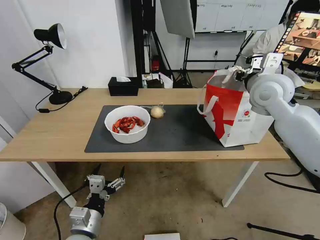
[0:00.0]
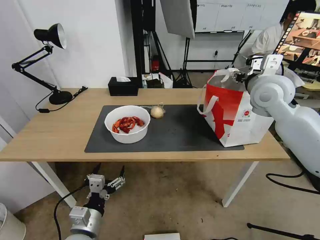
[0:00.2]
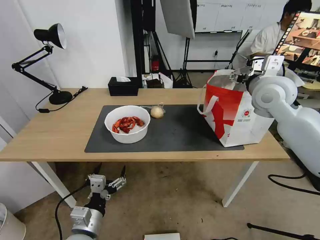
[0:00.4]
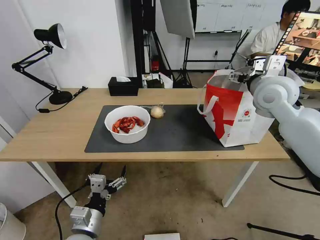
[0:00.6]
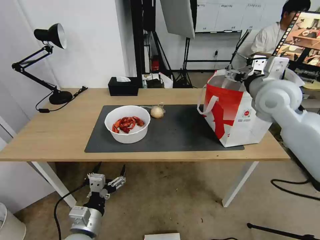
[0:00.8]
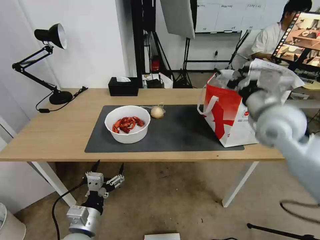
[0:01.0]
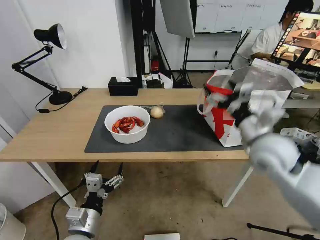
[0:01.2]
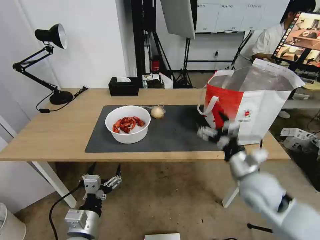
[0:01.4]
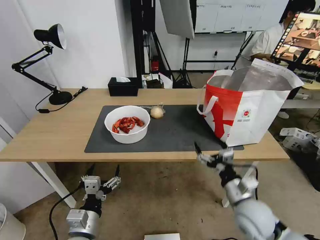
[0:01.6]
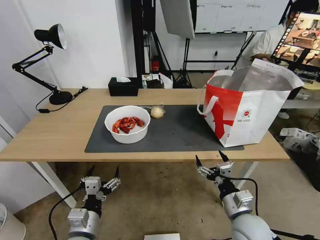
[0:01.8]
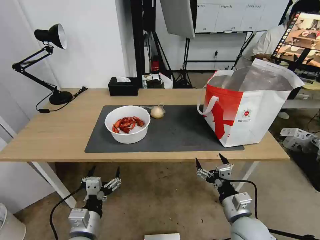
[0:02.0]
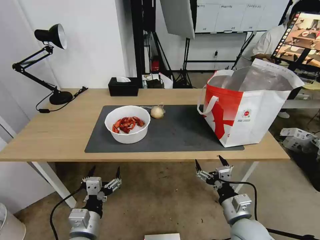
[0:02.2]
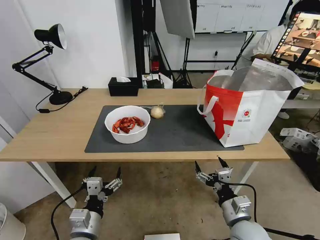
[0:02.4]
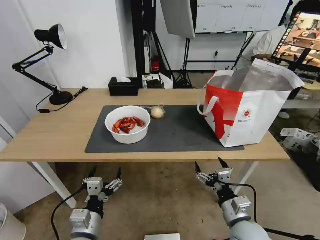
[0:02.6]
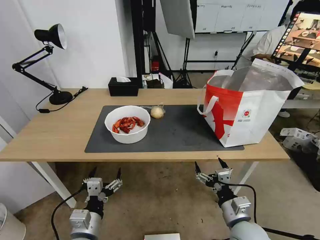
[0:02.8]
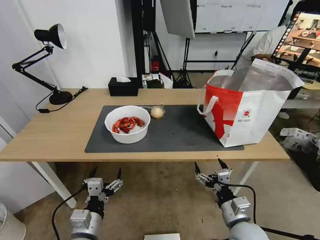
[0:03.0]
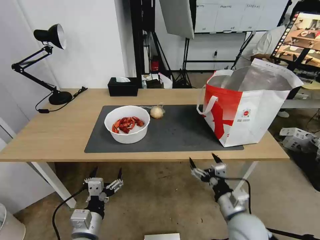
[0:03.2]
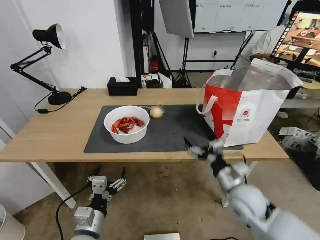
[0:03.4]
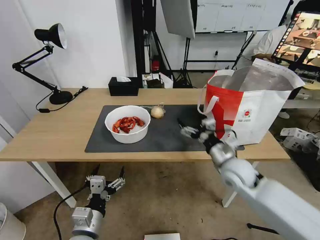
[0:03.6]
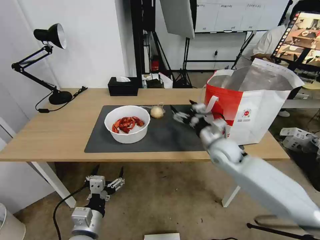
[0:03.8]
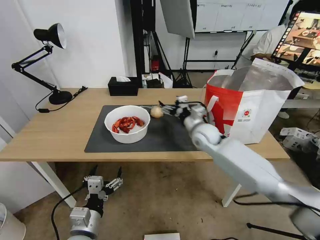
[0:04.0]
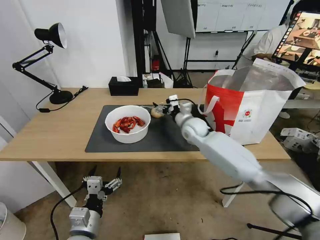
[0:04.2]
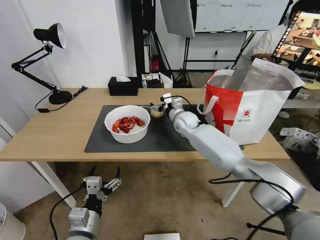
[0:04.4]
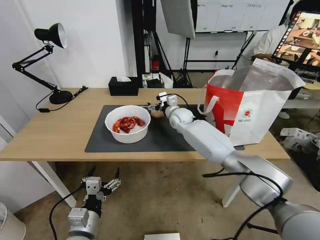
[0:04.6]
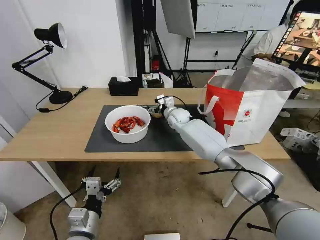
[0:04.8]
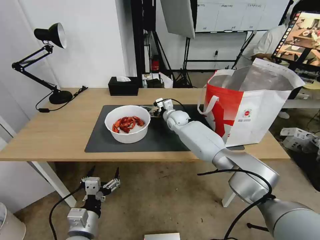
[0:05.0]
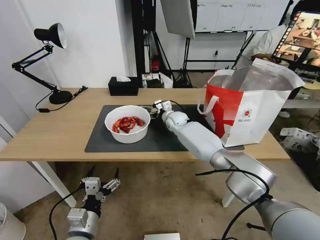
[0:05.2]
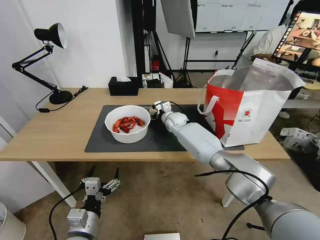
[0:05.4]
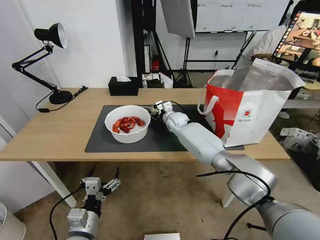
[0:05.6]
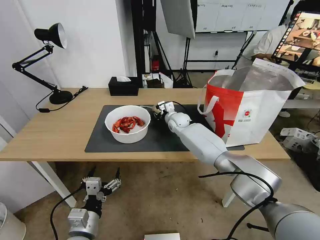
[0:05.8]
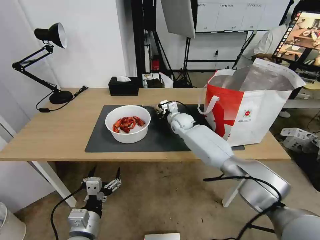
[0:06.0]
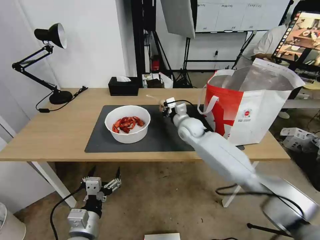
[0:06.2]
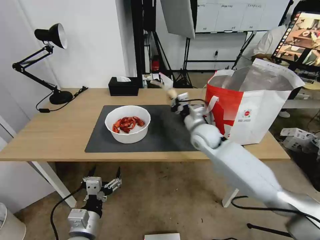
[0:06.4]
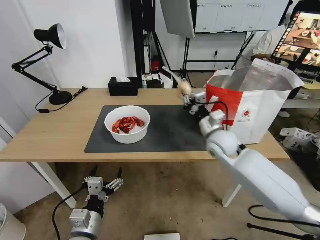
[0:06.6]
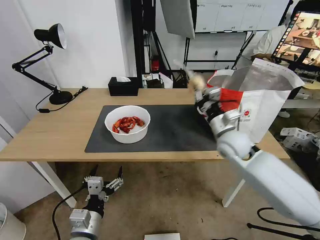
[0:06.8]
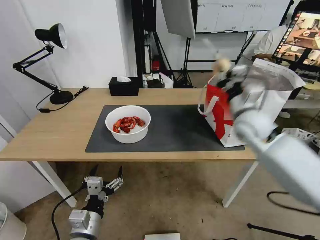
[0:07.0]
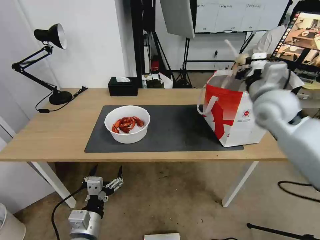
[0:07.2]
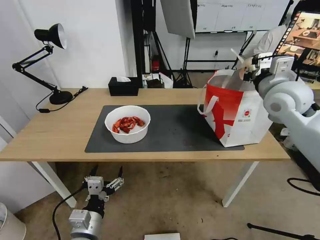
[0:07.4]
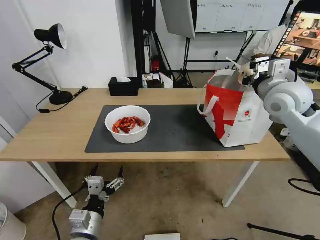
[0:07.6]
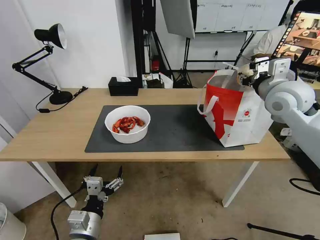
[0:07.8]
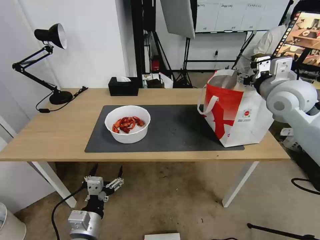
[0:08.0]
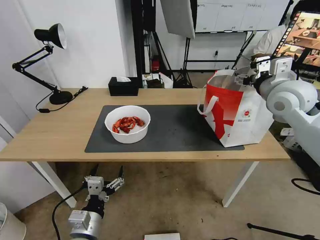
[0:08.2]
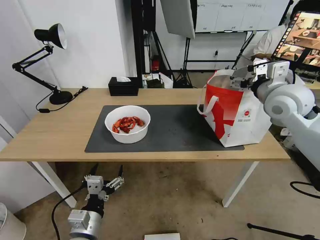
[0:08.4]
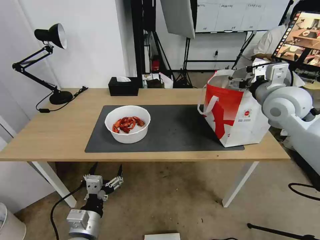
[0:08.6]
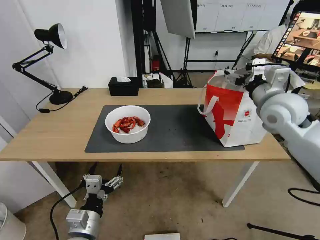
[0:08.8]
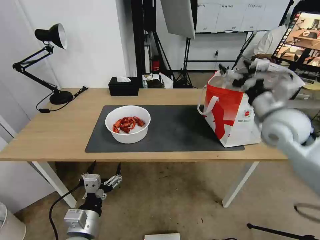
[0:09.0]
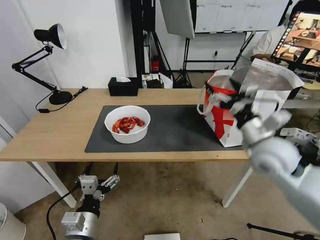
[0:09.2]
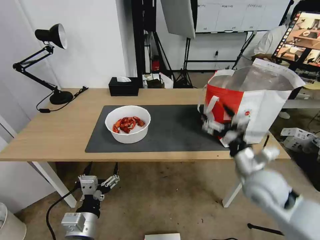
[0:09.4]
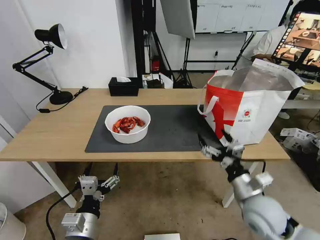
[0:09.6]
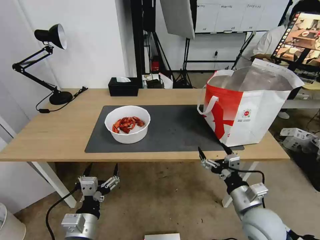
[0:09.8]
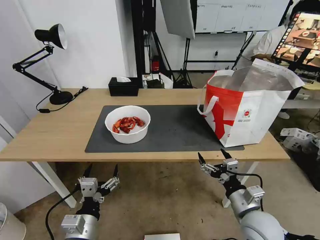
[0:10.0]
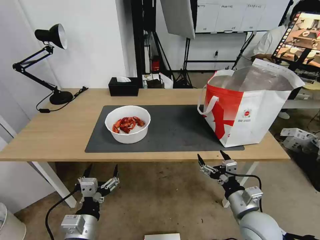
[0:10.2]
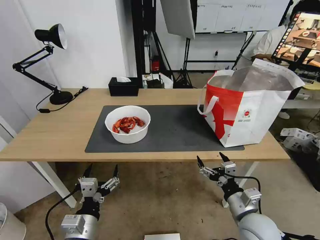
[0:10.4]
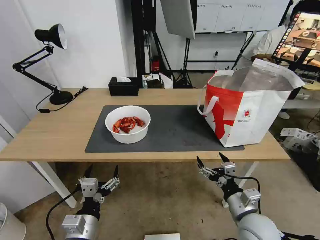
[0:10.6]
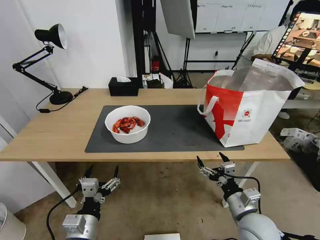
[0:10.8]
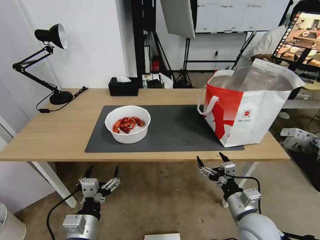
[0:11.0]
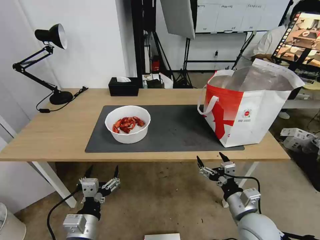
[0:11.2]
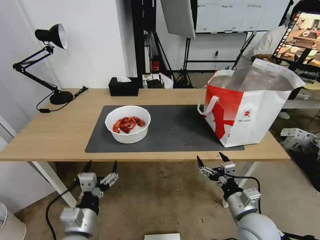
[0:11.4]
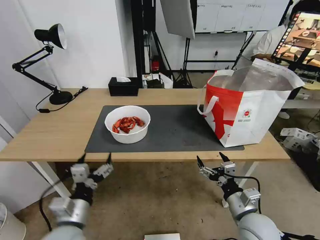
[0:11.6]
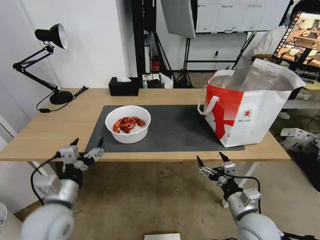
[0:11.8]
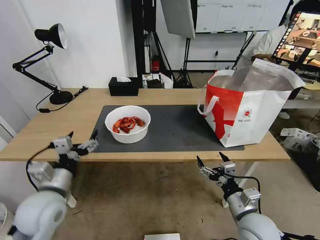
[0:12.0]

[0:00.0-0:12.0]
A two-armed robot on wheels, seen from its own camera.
Task of the whole recording: Pick up the trash from the table and place it into the takeout bag.
0:00.0 to 0:01.6: The right gripper shifts approximately 35 cm downward and backward, and opens its fingers.
0:01.6 to 0:03.0: The right gripper ends up approximately 5 cm from where it was.
0:03.0 to 0:04.4: The right gripper shifts some 40 cm forward.
0:04.4 to 0:06.0: The right gripper closes up.
0:06.0 to 0:07.6: The right gripper moves to the right, upward and backward, about 35 cm.
0:07.6 to 0:09.0: The right gripper goes roughly 10 cm backward and downward, and opens.
0:09.0 to 0:10.4: The right gripper is displaced downward and backward by approximately 30 cm.
0:10.4 to 0:12.0: The left gripper heads forward, upward and to the left, covering some 15 cm.

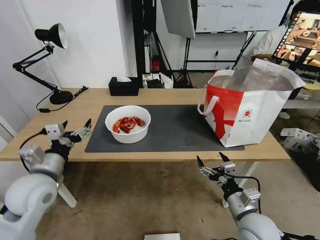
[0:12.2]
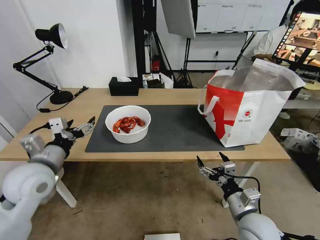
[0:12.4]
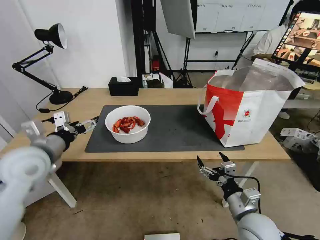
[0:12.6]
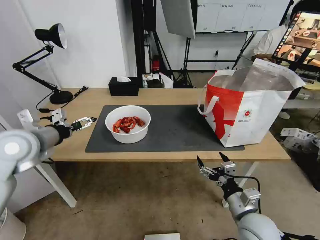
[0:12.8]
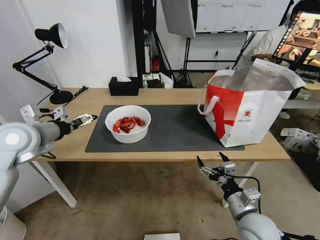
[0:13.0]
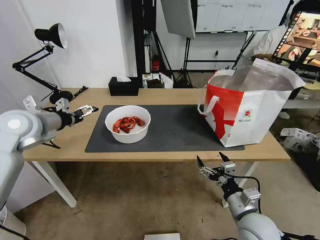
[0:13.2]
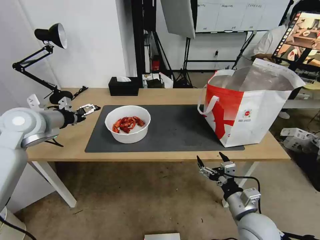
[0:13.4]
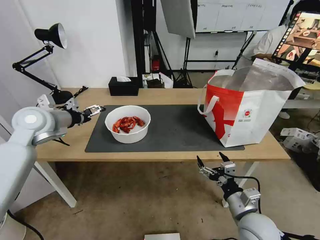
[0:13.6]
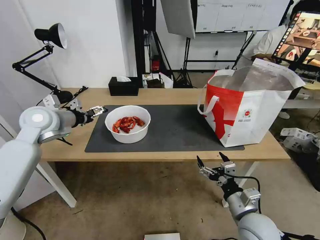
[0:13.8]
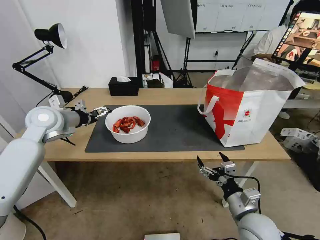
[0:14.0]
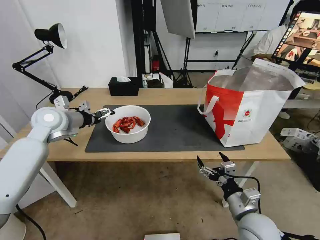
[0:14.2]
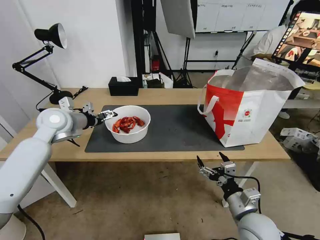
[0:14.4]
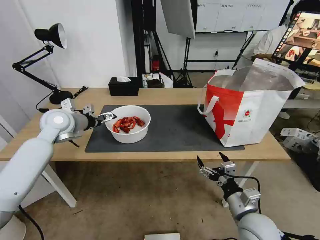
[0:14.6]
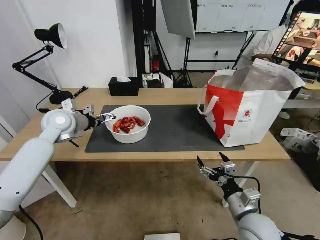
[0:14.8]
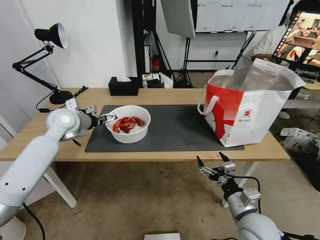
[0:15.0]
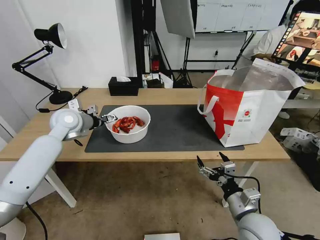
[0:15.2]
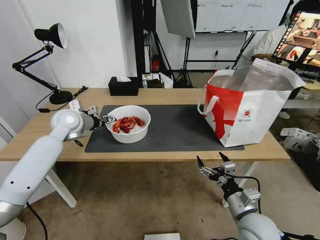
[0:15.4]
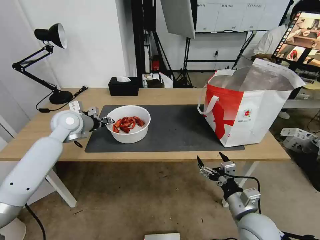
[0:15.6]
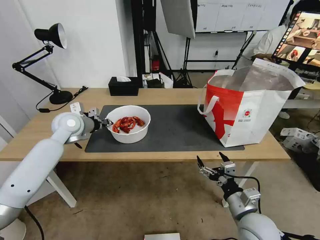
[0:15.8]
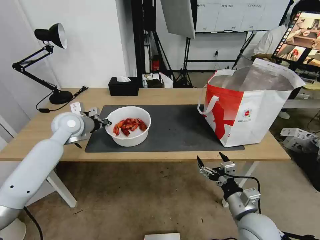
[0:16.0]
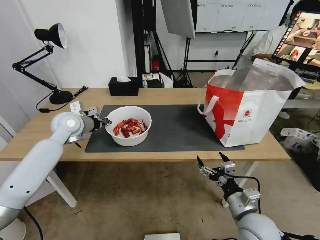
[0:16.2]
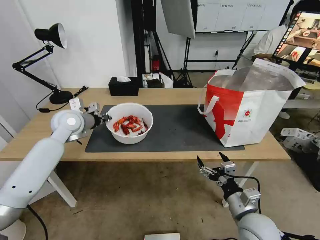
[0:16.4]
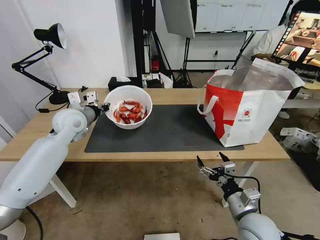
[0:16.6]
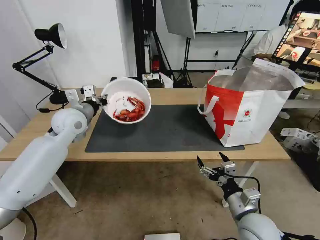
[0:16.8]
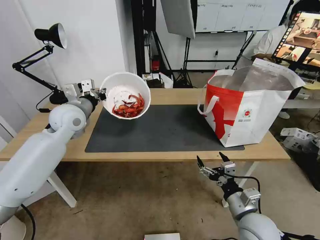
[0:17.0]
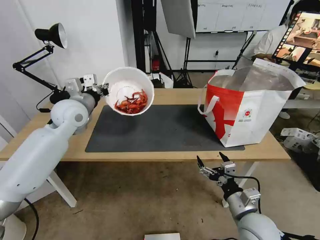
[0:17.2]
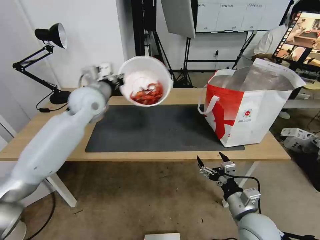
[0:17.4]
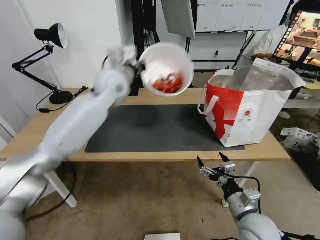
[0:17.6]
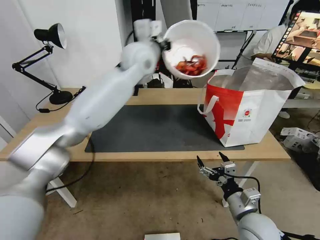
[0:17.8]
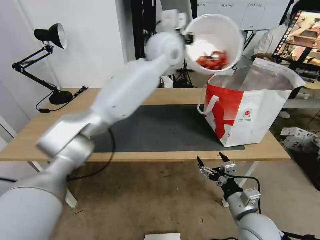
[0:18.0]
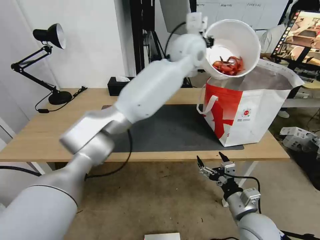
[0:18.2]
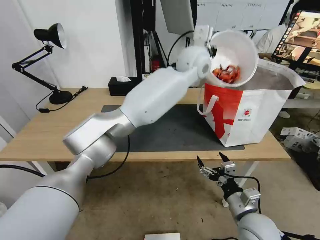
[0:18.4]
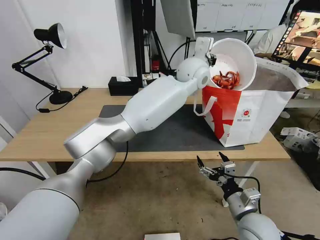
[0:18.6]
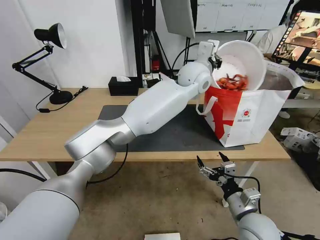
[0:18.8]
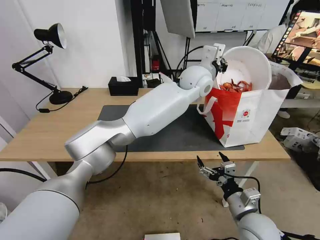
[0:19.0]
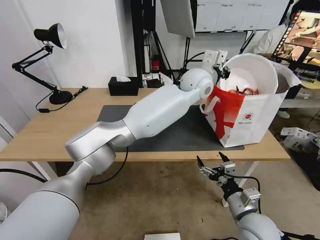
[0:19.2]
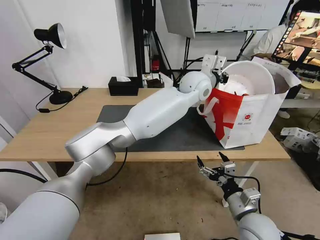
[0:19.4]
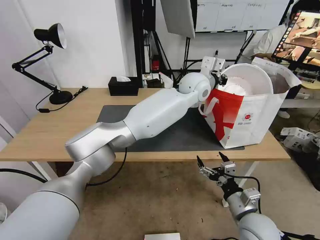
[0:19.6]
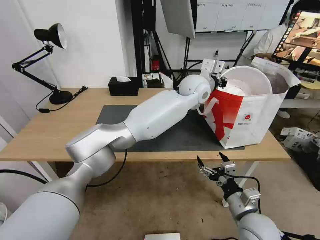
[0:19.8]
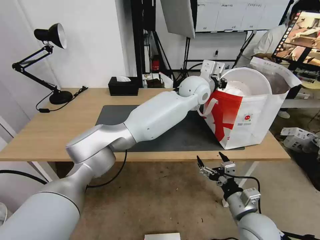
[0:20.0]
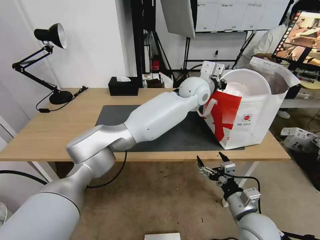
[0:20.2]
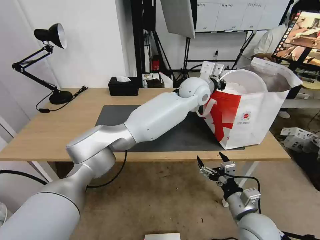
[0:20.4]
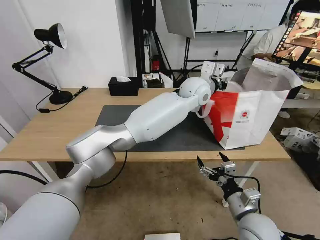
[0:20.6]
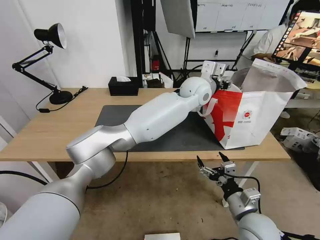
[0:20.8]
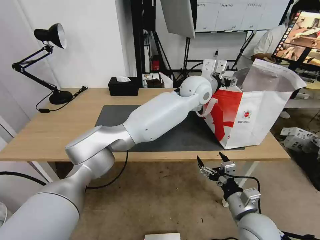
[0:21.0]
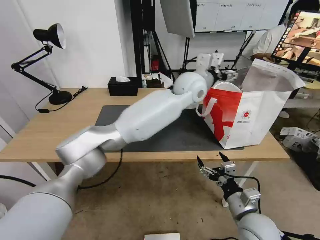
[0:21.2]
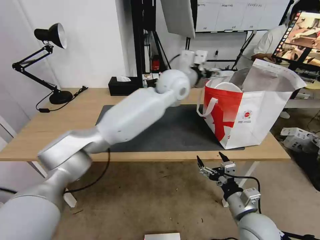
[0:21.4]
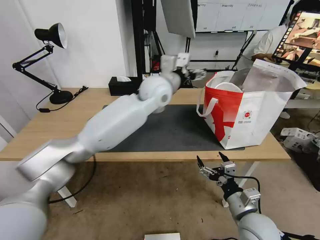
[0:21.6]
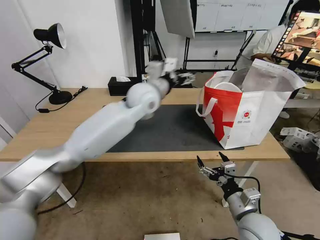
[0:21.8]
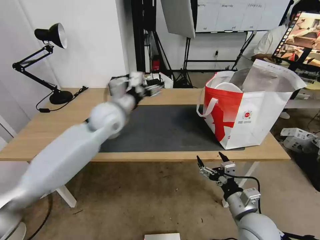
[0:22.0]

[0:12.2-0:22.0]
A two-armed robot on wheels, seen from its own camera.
Task of the whole recording: Pick up the trash from the table and place it into the takeout bag.
0:12.2 to 0:13.6: The left gripper heads forward and upward, covering roughly 20 cm.
0:13.6 to 0:15.0: The left gripper changes place by about 10 cm.
0:15.0 to 0:16.4: The left gripper closes up.
0:16.4 to 0:17.8: The left gripper travels to the right and upward by some 30 cm.
0:17.8 to 0:19.2: The left gripper heads to the right, covering roughly 20 cm.
0:19.2 to 0:20.6: There are only small adjustments of the grippers.
0:20.6 to 0:22.0: The left gripper travels to the left by roughly 25 cm, and opens its fingers.
